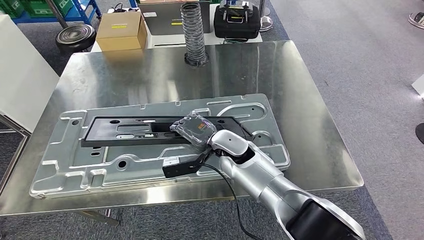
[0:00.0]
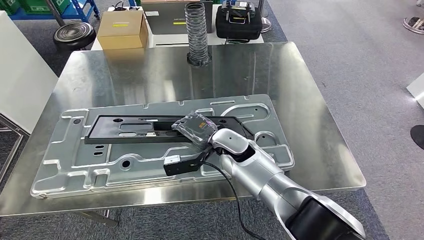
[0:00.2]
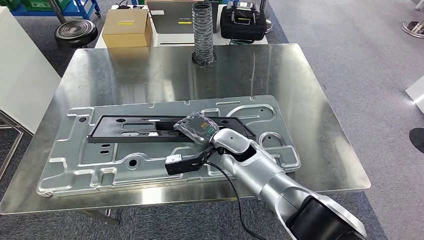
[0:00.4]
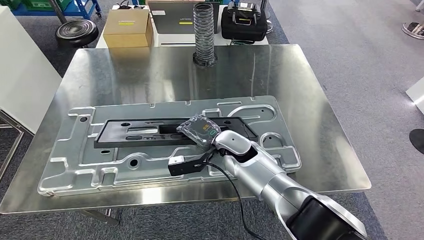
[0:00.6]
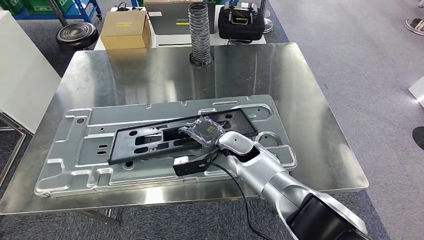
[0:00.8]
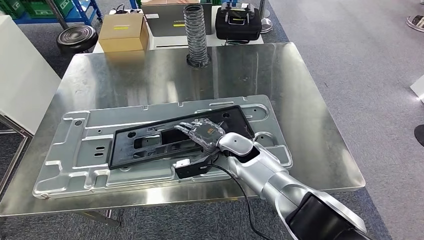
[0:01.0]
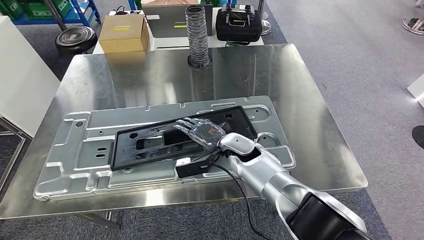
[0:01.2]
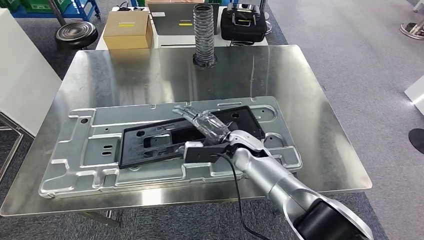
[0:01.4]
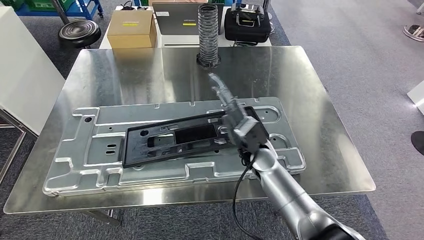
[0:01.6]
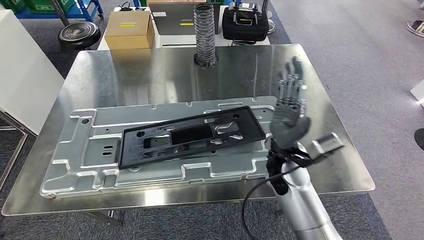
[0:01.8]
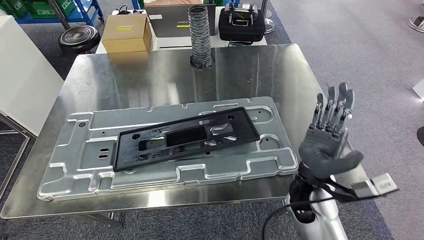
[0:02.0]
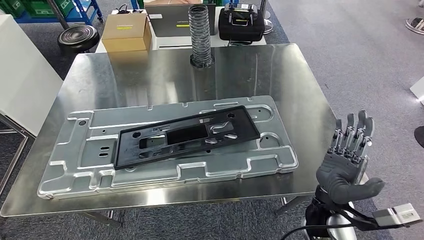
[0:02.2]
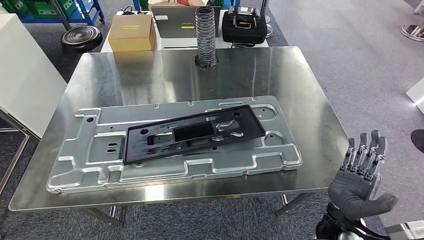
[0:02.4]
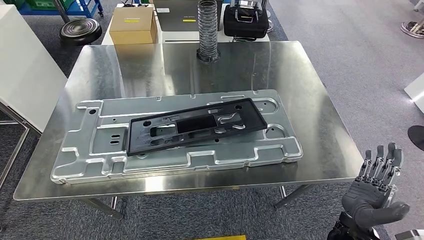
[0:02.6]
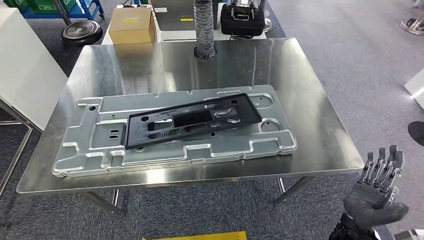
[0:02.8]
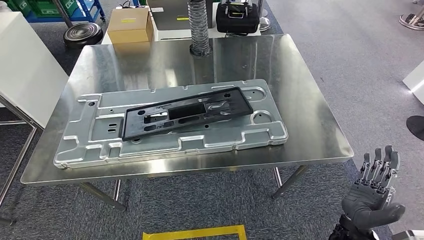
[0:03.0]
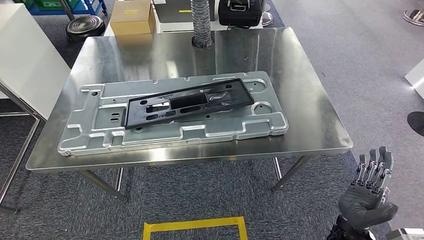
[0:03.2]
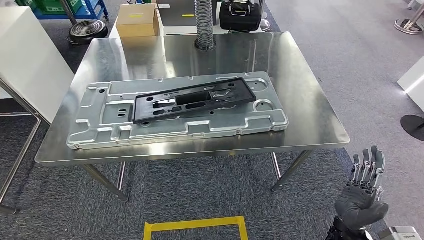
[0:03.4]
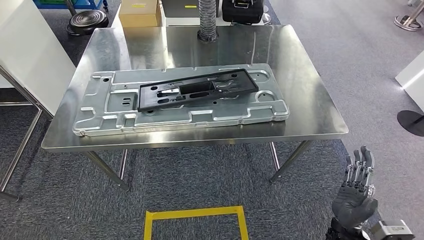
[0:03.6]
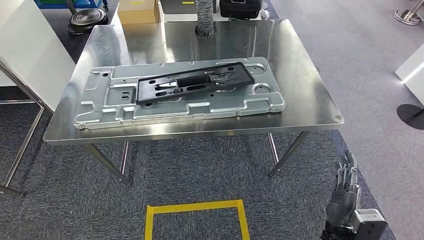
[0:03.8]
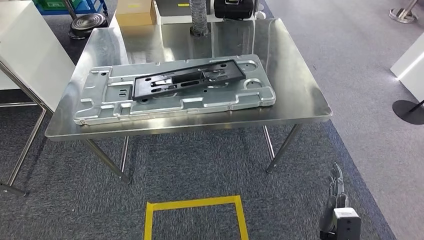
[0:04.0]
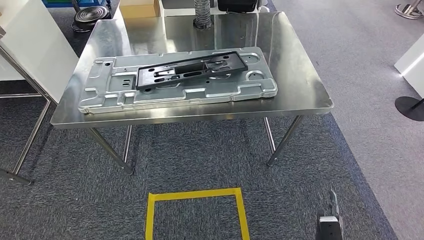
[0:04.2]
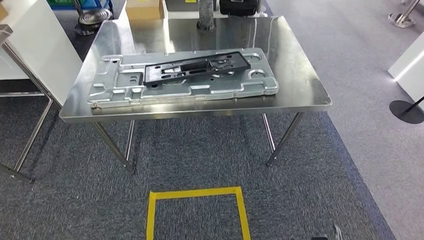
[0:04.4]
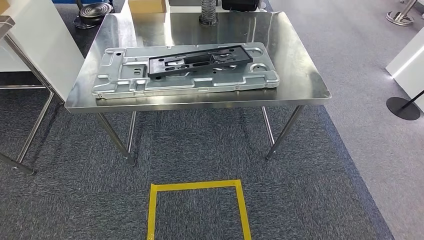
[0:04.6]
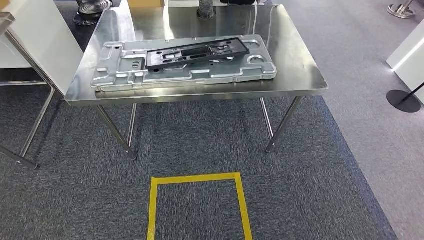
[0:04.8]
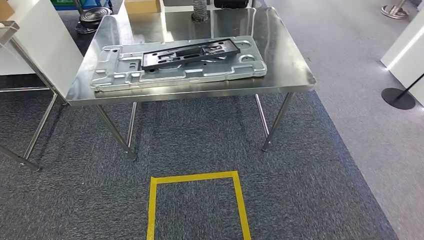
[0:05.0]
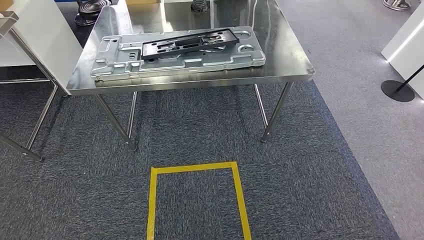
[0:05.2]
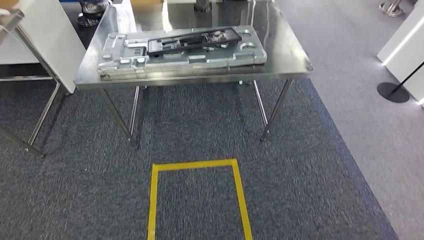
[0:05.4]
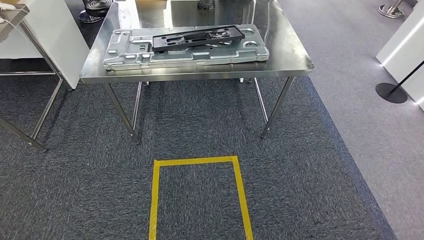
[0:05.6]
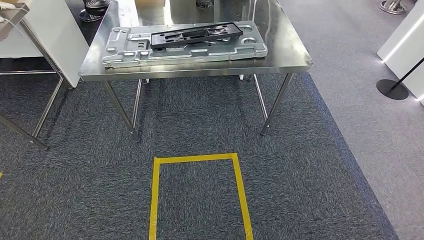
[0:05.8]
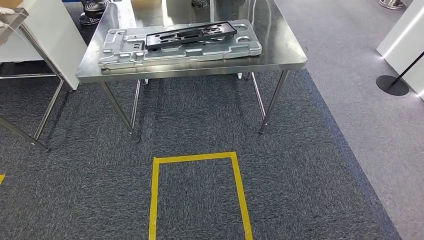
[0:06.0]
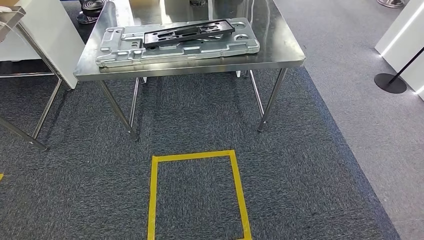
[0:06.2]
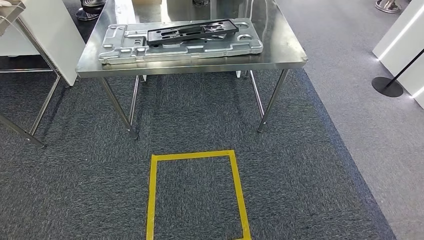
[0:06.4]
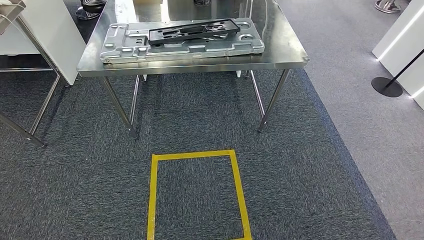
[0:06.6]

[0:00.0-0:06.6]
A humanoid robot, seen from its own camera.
Step, 0:00.0 to 0:02.4: Insert the small component into the corresponding slot on the workbench.
Step, 0:02.8 to 0:06.6: Return to the initial position at the workbench.
